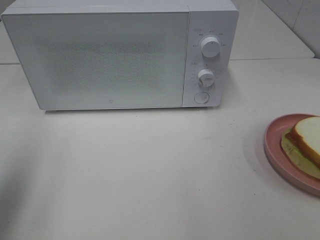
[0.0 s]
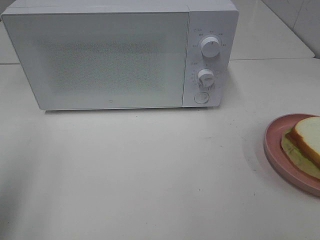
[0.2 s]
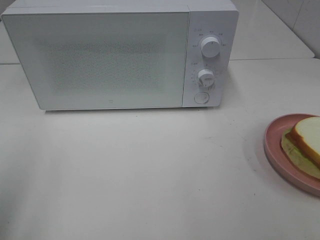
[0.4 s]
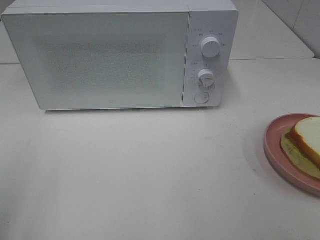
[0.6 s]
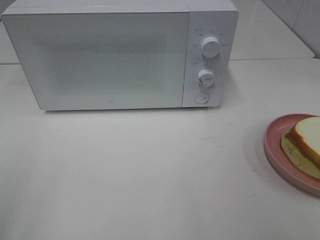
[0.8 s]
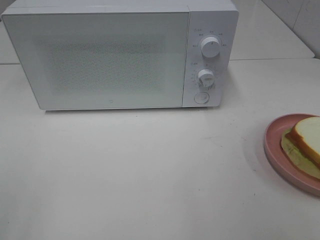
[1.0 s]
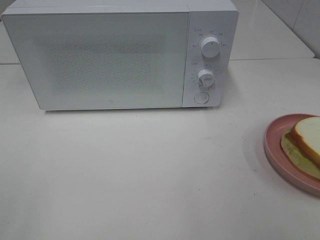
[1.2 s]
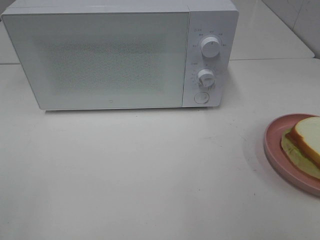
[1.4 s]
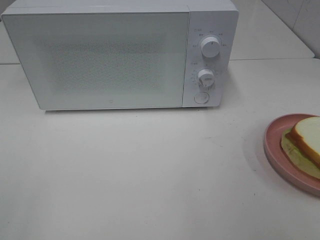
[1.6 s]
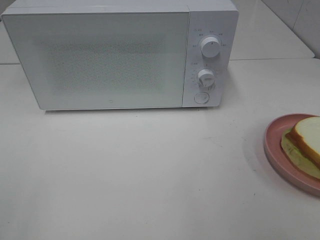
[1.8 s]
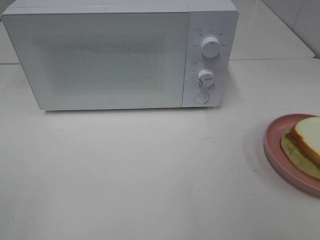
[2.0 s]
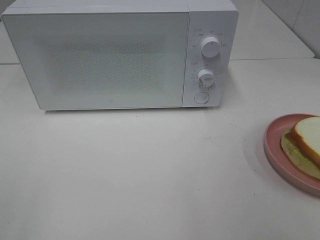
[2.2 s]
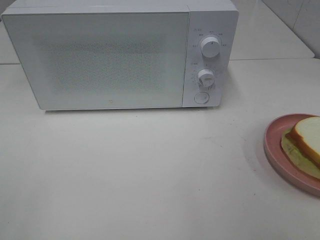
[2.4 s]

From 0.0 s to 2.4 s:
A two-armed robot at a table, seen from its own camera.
Task of the whole recording: Heat Sandwich.
From 0.0 s to 1.2 s: The left gripper is displaced backward by approximately 15 cm.
From 1.2 s to 2.4 s: Both grippers stay about where they are.

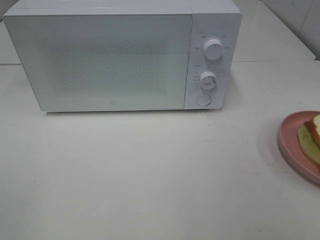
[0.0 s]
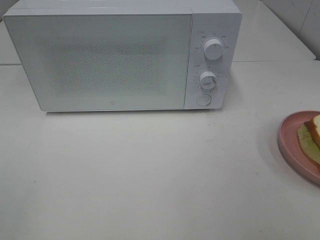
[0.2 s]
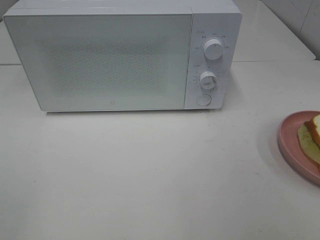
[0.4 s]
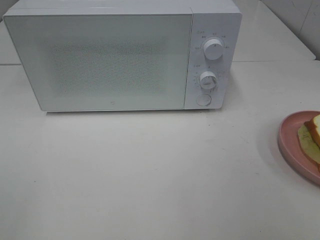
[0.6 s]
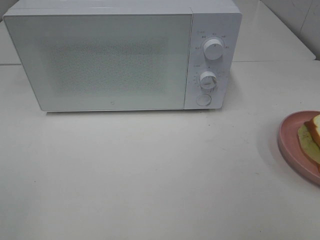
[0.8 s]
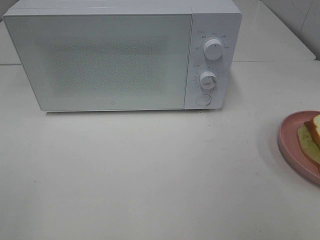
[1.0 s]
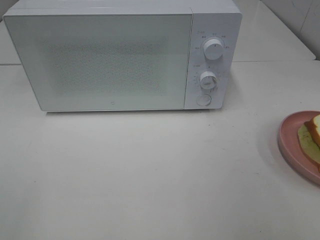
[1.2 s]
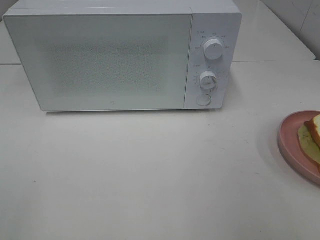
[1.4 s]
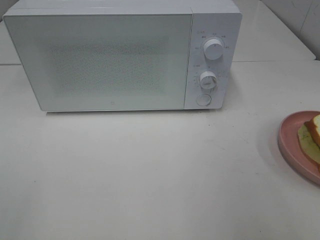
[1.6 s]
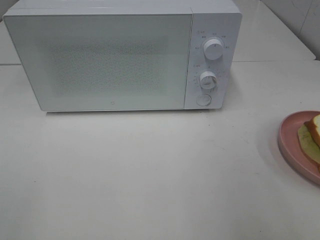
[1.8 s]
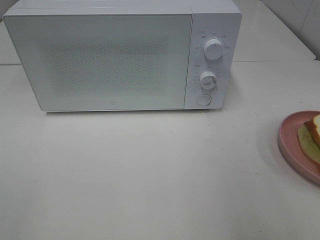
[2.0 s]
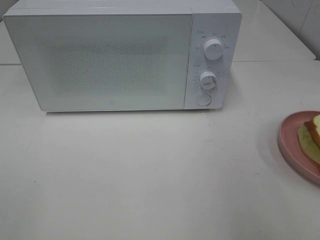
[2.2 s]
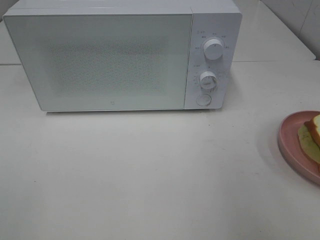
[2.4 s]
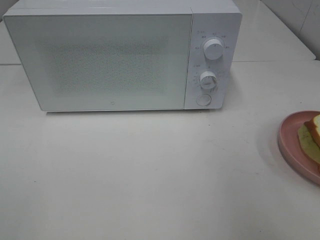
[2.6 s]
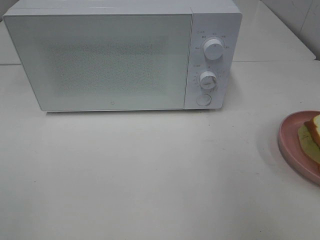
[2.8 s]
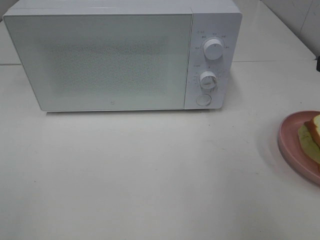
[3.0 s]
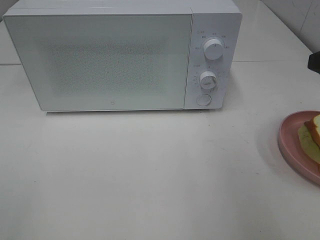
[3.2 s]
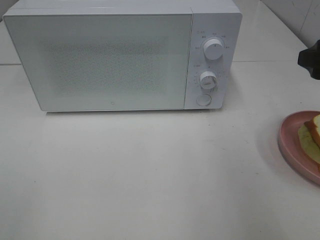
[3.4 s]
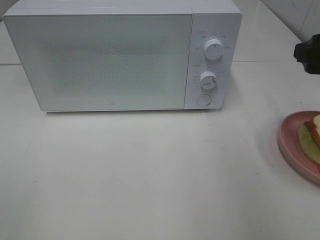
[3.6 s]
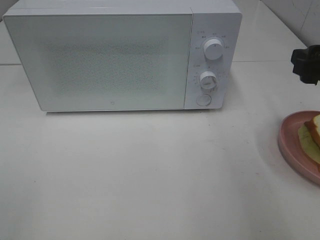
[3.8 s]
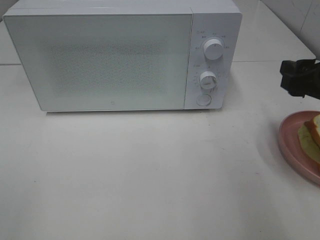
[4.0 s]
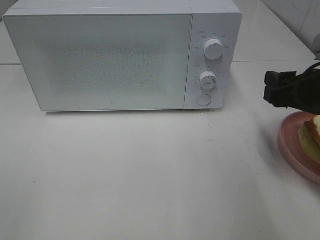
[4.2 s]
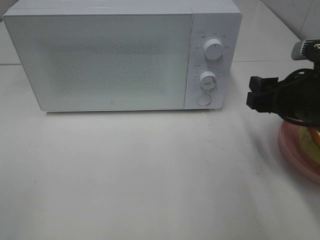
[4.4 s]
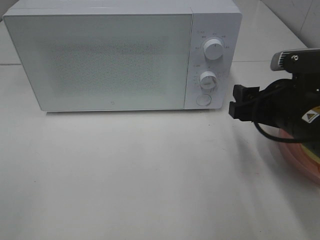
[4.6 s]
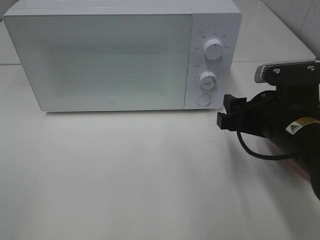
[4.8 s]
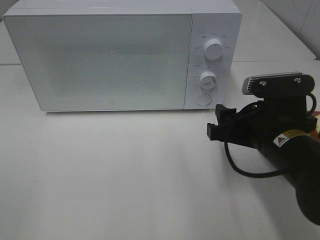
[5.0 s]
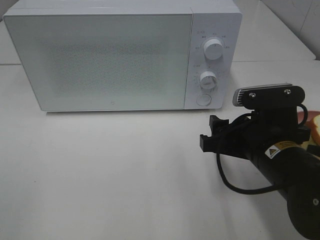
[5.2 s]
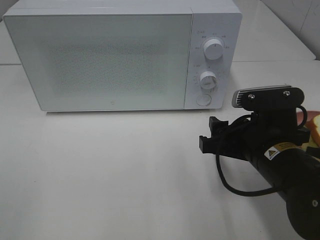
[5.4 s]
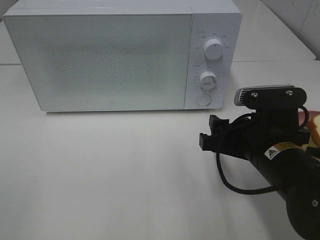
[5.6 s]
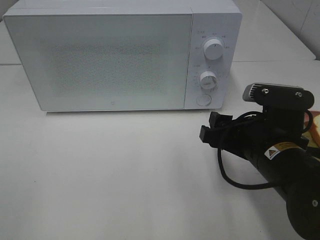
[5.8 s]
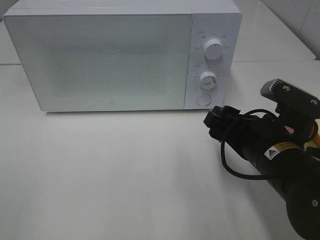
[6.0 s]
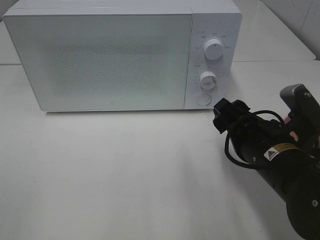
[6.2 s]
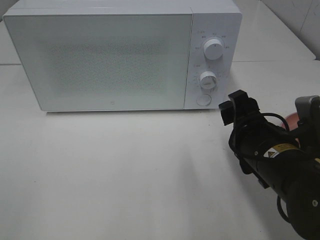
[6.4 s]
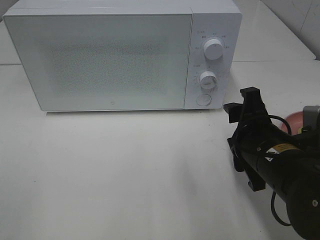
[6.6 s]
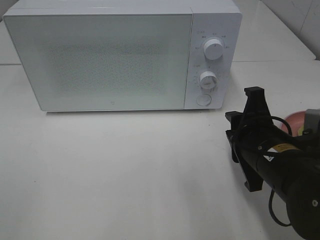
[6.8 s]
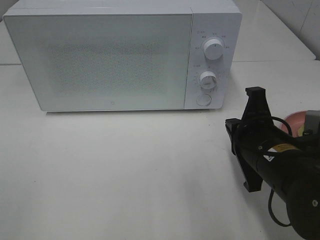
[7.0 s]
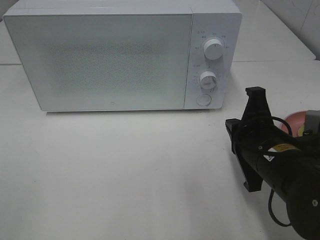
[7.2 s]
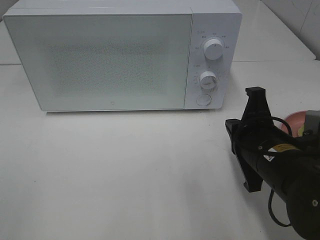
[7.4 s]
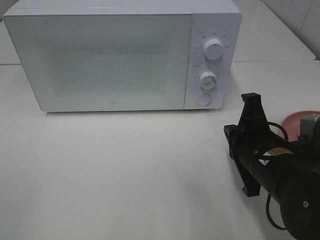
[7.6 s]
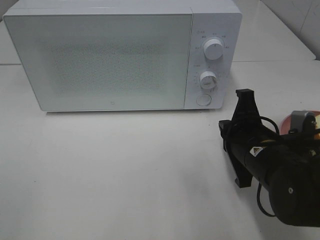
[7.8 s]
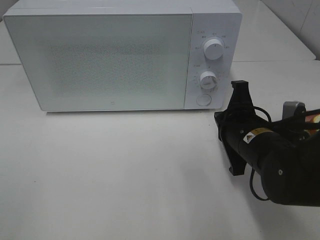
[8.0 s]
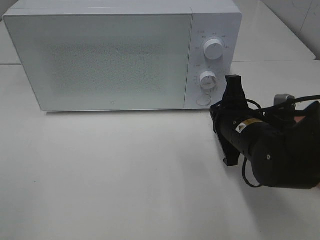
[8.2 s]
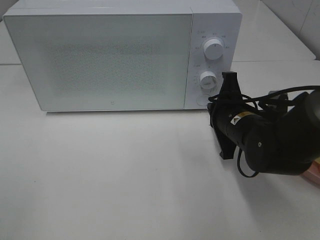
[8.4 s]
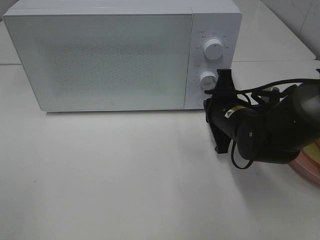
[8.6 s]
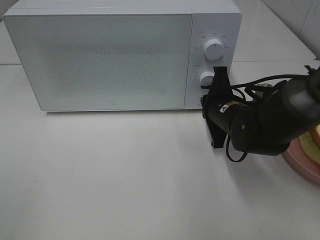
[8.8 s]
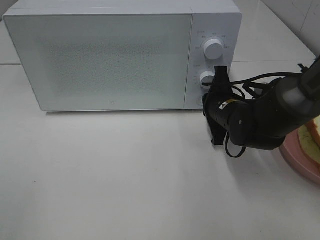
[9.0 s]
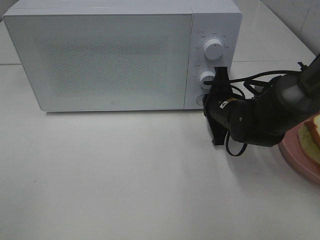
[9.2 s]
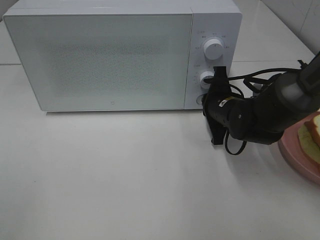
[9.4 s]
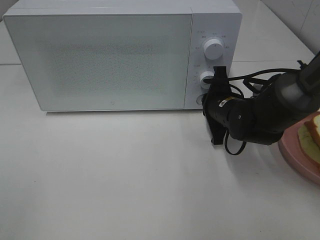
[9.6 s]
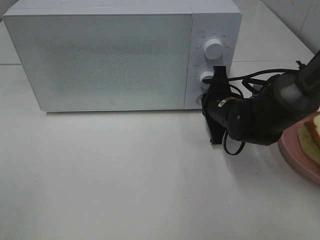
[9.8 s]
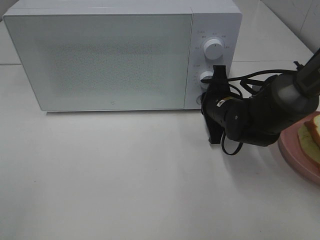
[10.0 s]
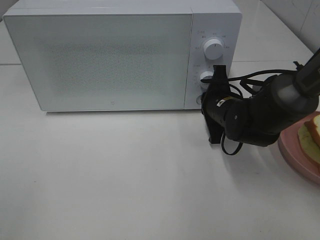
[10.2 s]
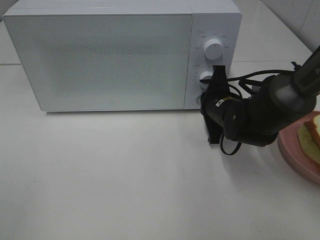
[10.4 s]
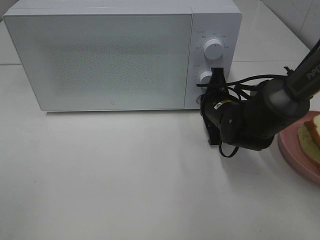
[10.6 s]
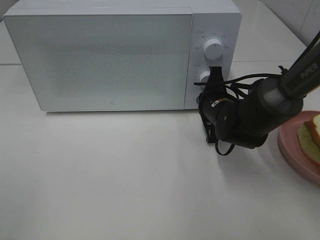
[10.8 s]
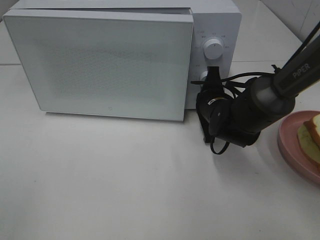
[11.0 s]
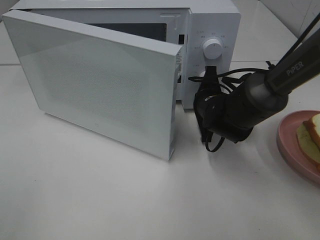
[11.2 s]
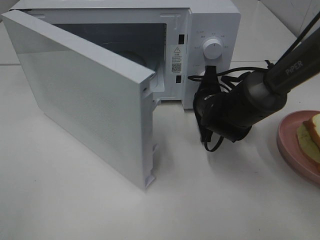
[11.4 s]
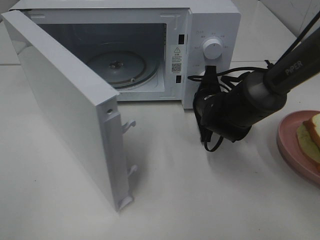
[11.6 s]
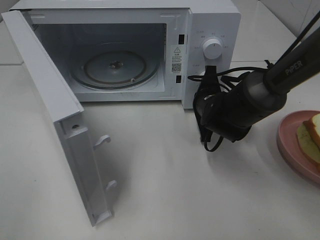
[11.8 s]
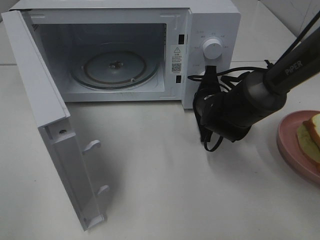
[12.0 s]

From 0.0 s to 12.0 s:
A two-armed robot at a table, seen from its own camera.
Task of the whole recording: Heat Sandwich.
From 3.0 s to 4.4 s: The right gripper heads downward and to the left, covering roughly 10 cm.
From 4.4 s to 6.0 s: The right gripper is displaced to the left by roughly 5 cm.
From 6.0 s to 7.6 s: The right gripper closes up.
From 7.6 s to 9.0 s: The right gripper goes roughly 15 cm forward.
From 9.0 s to 10.4 s: The two grippers keep their place.

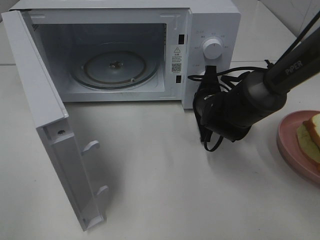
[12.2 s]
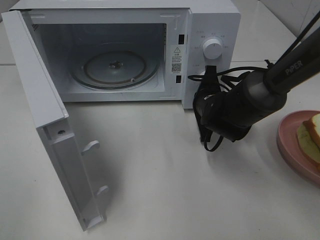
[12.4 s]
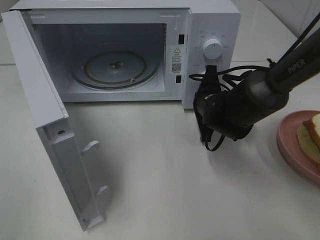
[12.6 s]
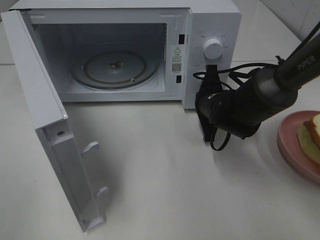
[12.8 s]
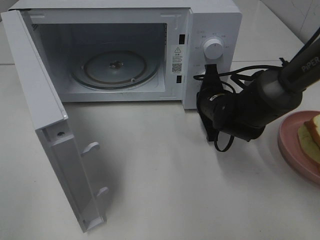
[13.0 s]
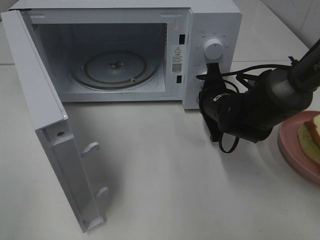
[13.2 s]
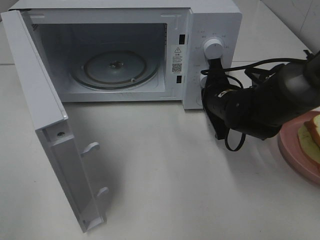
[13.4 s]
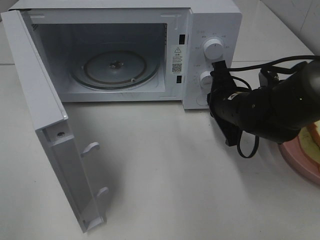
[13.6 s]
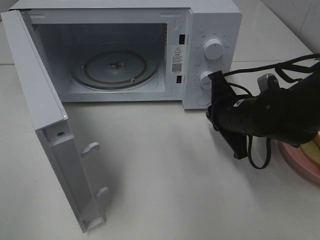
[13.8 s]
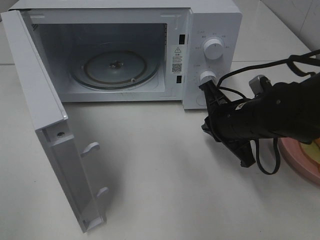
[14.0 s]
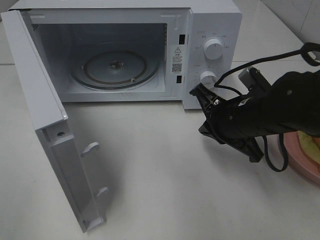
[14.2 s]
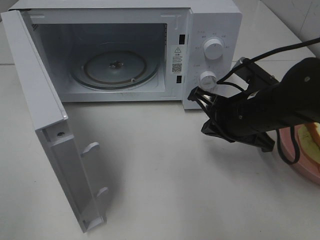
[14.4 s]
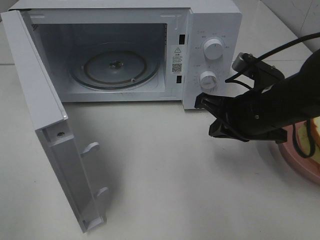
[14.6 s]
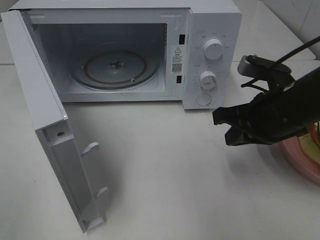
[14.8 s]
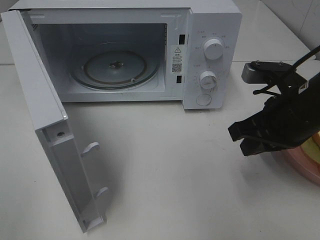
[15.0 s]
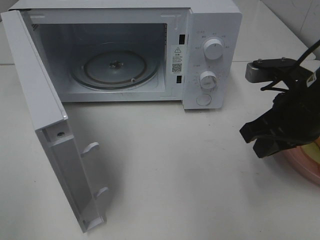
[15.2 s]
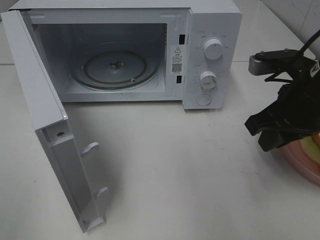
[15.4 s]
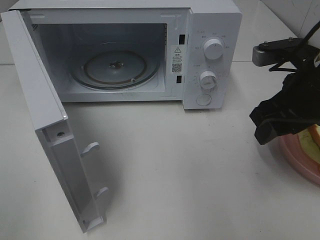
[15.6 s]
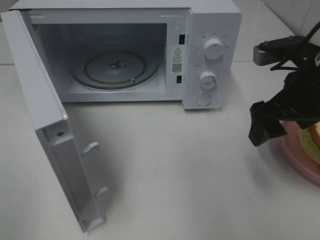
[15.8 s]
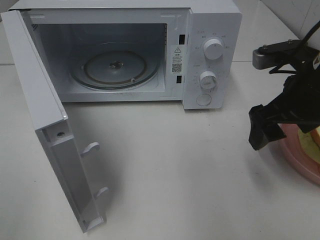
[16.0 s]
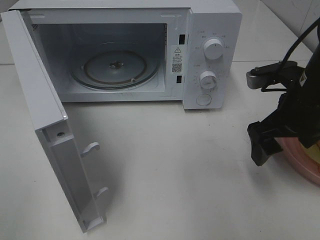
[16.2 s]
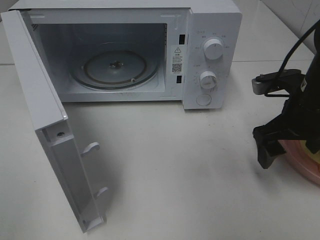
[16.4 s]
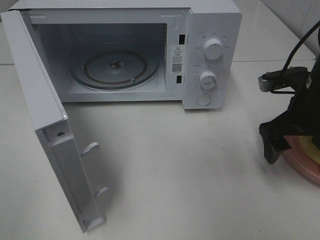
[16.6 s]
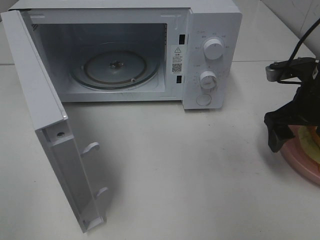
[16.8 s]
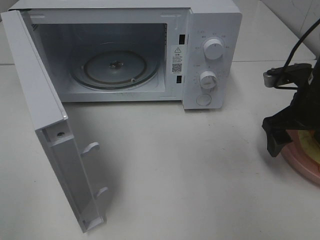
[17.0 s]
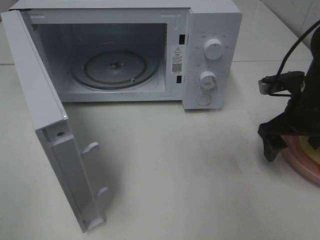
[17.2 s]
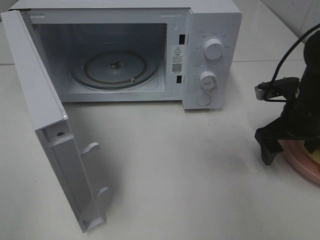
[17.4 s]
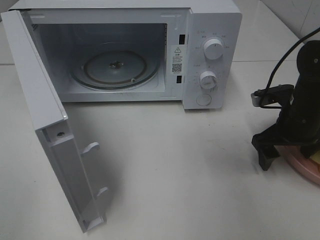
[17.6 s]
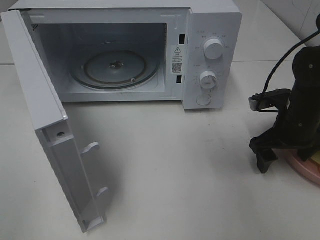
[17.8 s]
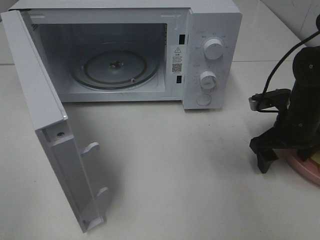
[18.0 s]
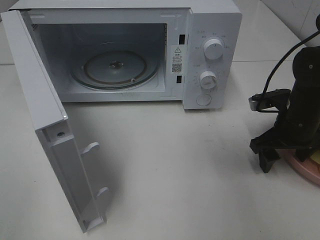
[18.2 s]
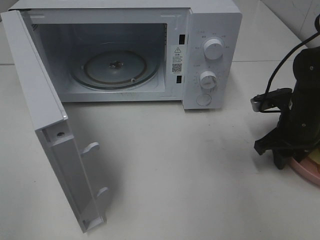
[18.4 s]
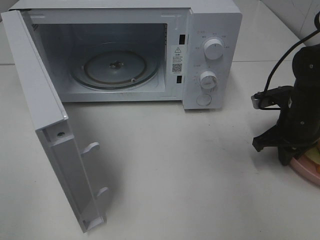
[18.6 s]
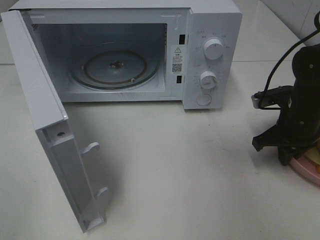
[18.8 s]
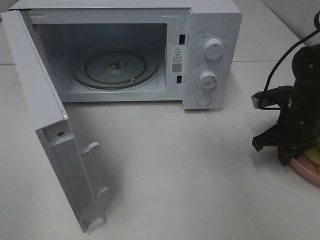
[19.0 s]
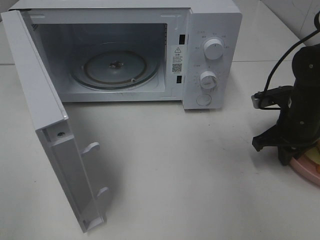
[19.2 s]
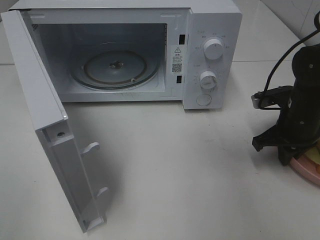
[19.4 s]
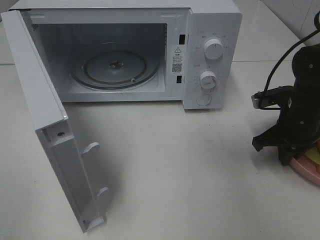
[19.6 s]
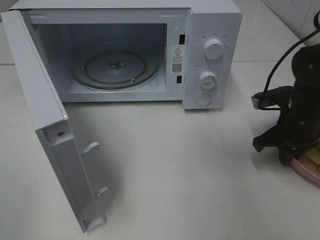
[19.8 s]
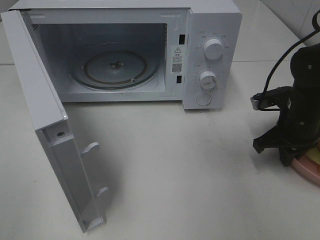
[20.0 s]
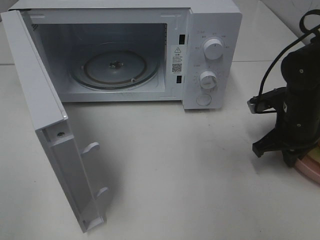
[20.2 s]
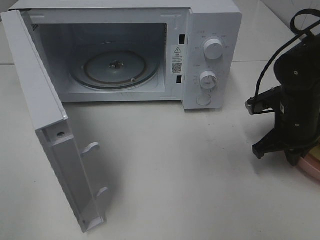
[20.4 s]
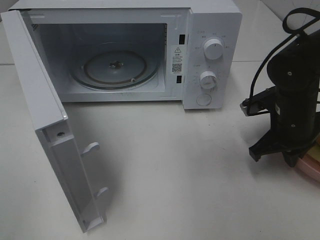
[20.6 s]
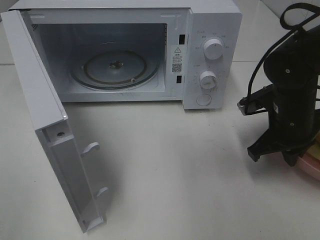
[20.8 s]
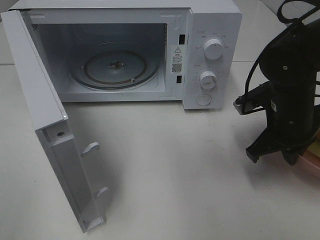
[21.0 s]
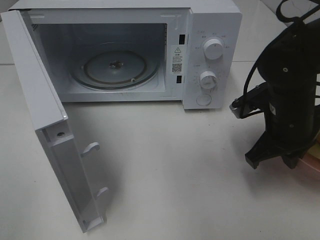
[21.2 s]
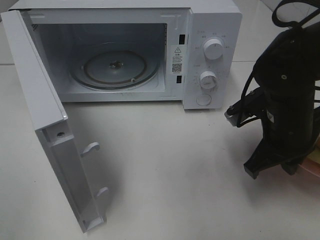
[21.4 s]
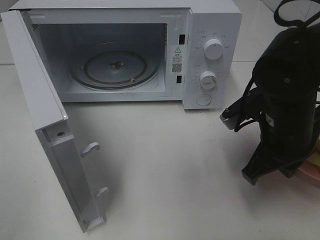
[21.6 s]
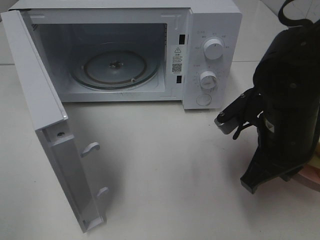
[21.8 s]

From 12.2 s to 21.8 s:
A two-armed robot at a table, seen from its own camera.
Task of the whole recording: Heat Sandwich.
Step, from 13.4 s to 19.2 s: Right hand: grab the plate with the sandwich.
From 12.2 s to 13.8 s: The right gripper moves backward, approximately 10 cm.
From 13.8 s to 15.4 s: The right gripper heads upward and to the right, covering some 10 cm.
From 15.4 s to 17.0 s: The right gripper shifts approximately 5 cm forward and downward, and opens its fingers.
From 17.0 s to 18.6 s: The right gripper moves downward, some 5 cm, and closes up.
From 18.6 s to 20.2 s: There are only small adjustments of the grippers.
From 20.2 s to 21.8 s: The right gripper goes approximately 15 cm backward, to the left and upward.
